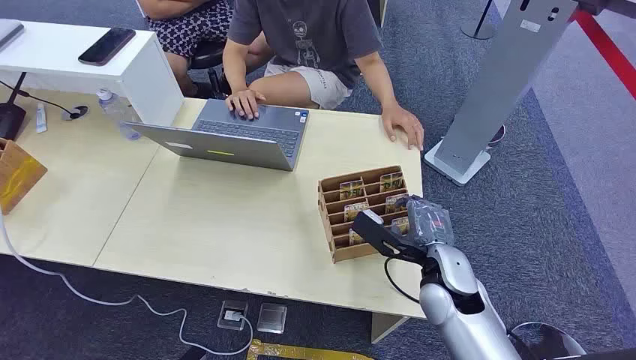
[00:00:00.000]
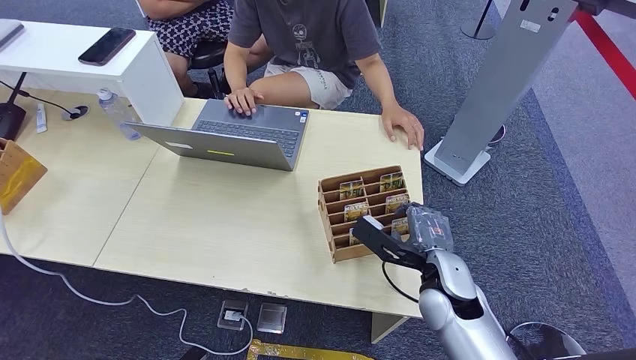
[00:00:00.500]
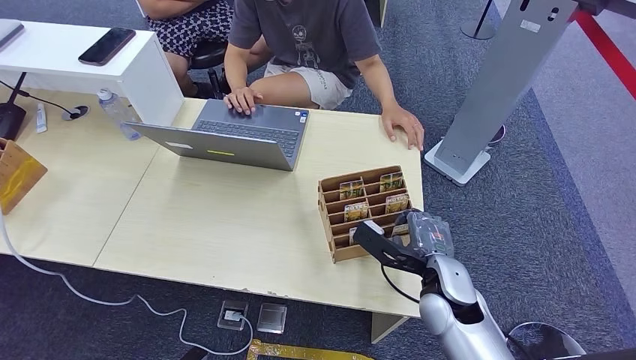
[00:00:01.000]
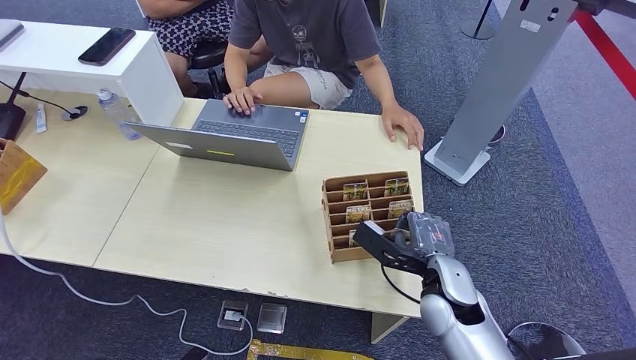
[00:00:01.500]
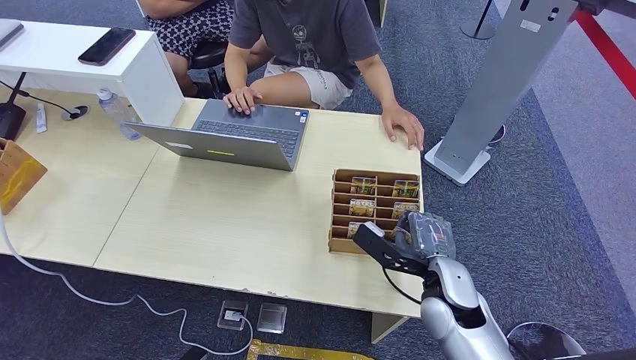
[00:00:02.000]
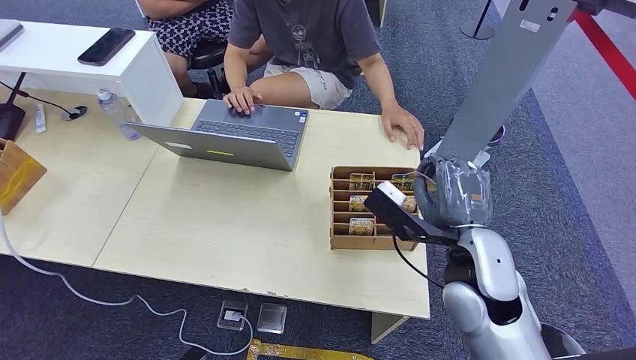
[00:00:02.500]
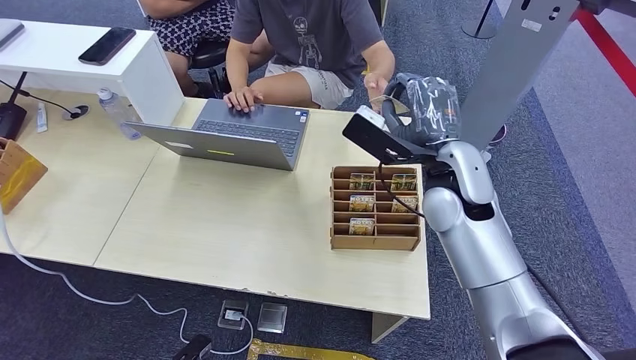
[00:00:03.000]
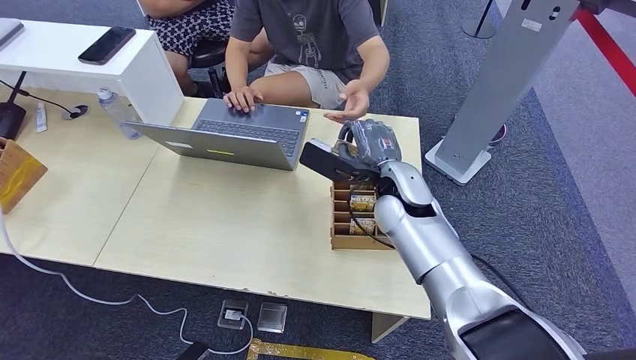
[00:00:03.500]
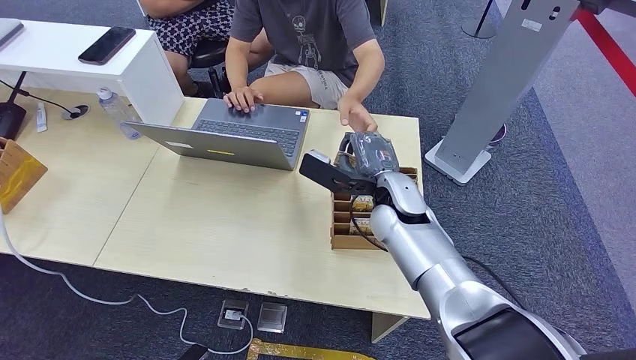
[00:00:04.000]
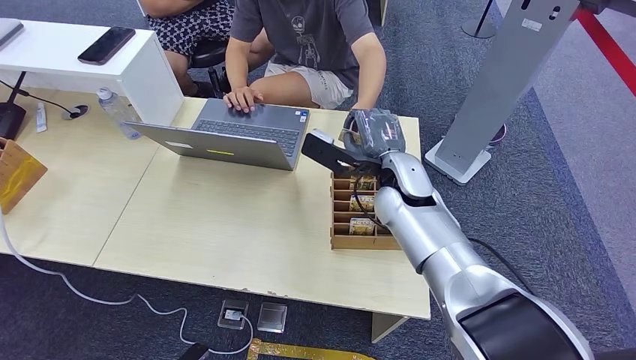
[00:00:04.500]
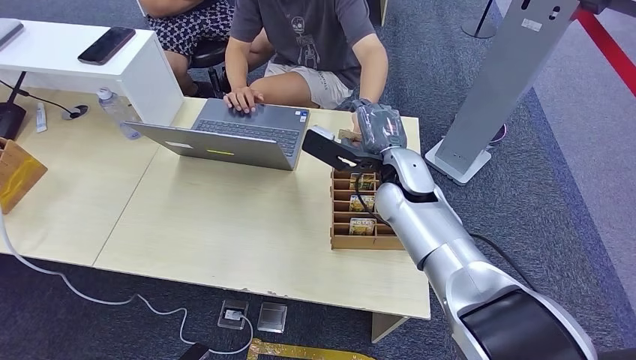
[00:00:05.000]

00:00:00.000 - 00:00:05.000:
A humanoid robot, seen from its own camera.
Step, 00:00:00.000 - 00:00:02.500: Pick up the key card from the card box.
Step, 00:00:03.000 - 00:00:05.000: Hand the key card to the target.
00:00:02.500 - 00:00:05.000: The right hand heads forward and to the left, covering about 15 cm.

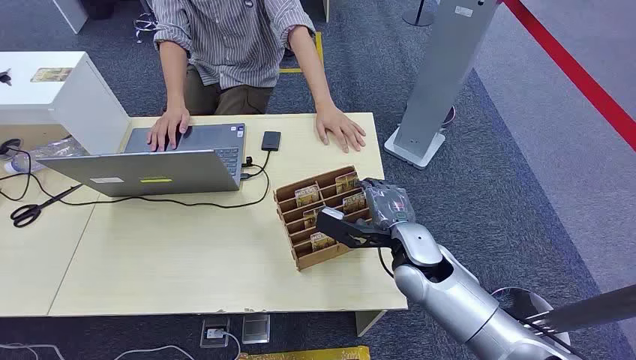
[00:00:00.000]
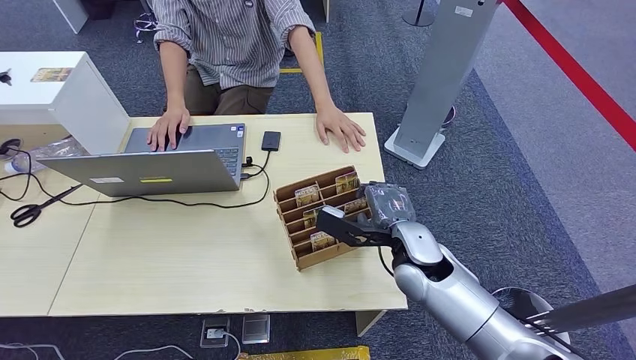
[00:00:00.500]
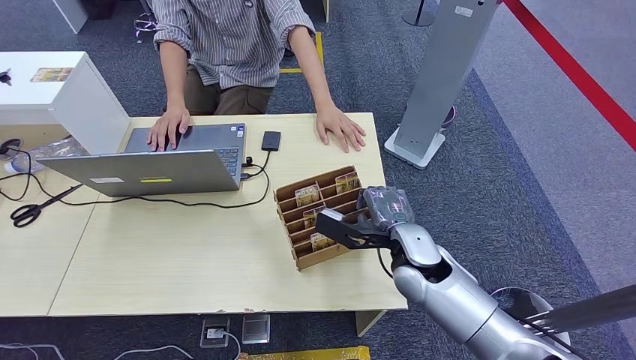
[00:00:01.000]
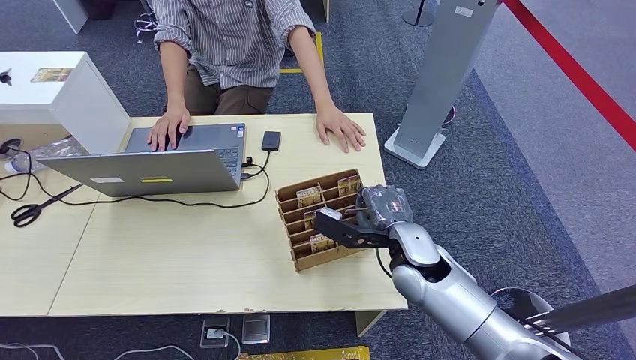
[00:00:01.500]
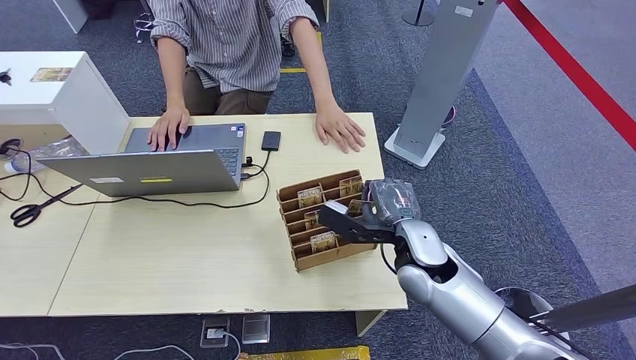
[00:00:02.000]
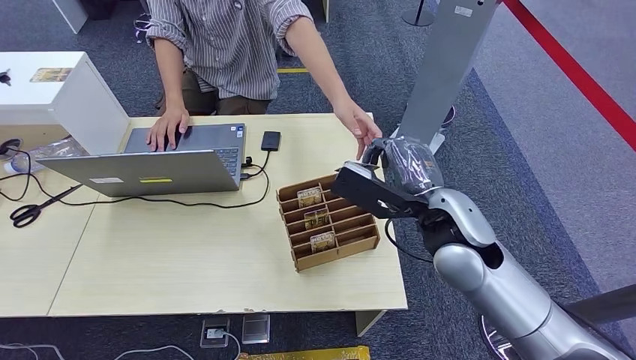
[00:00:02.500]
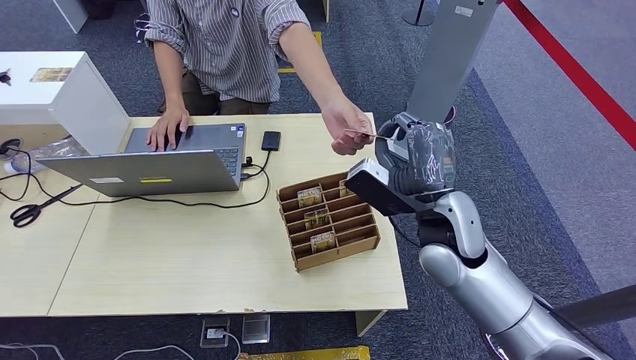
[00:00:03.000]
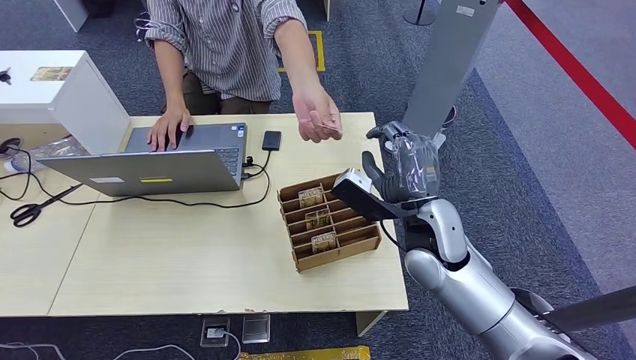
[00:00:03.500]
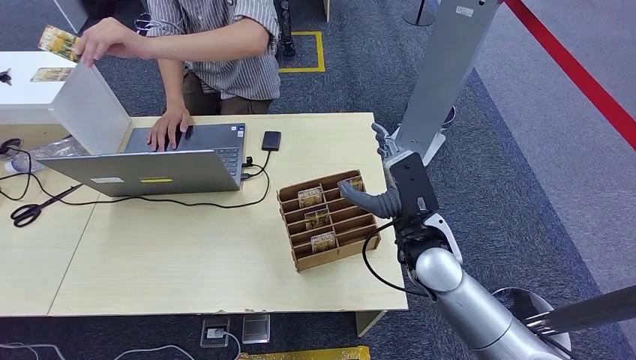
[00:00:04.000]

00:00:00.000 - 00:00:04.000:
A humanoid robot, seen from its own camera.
Step, 00:00:00.000 - 00:00:02.000: Pick up the key card from the card box.
Step, 00:00:03.500 - 00:00:04.000: Hand the key card to the target.
